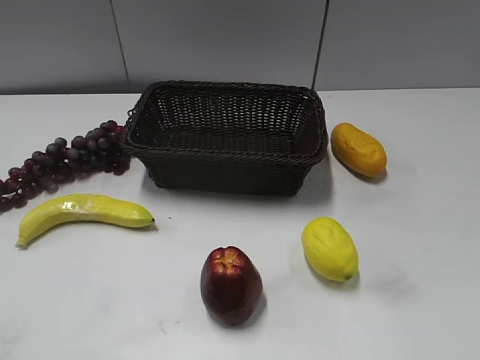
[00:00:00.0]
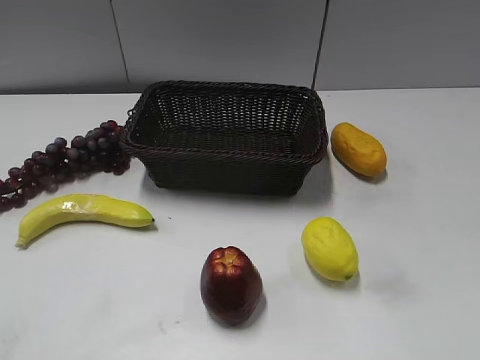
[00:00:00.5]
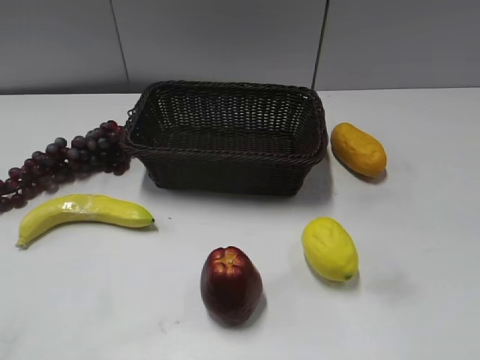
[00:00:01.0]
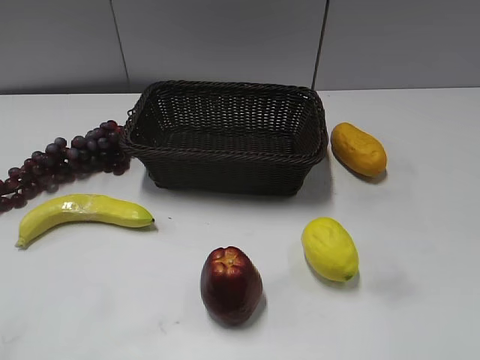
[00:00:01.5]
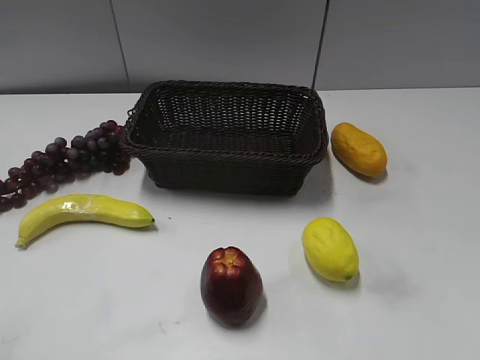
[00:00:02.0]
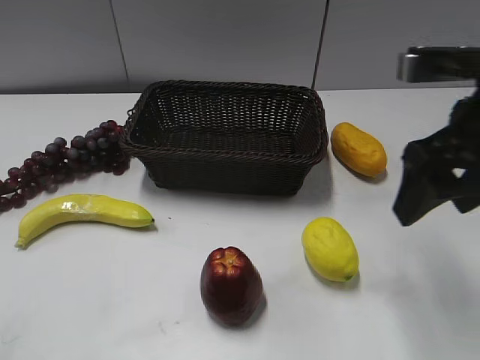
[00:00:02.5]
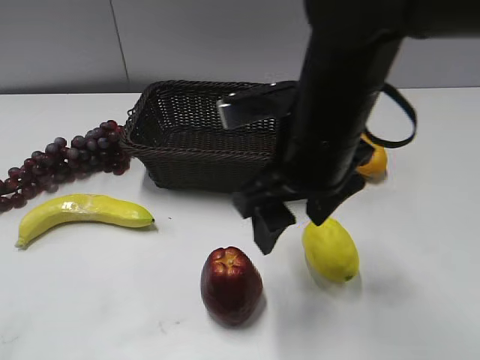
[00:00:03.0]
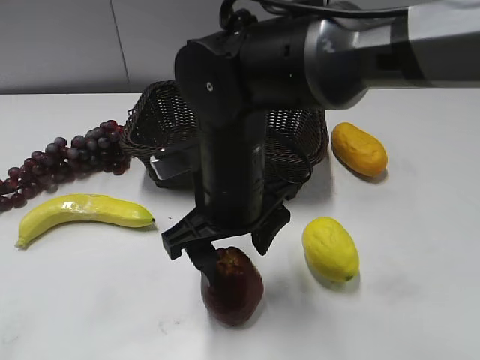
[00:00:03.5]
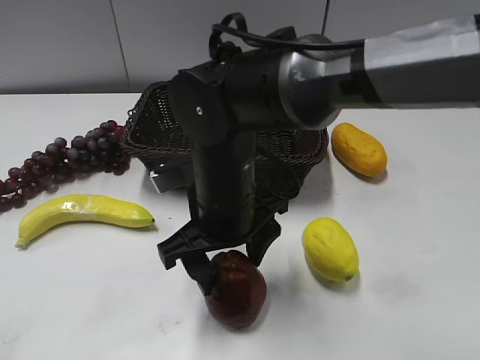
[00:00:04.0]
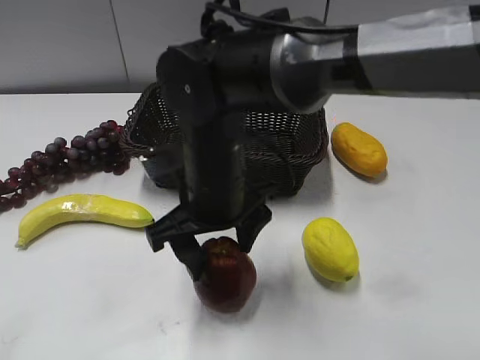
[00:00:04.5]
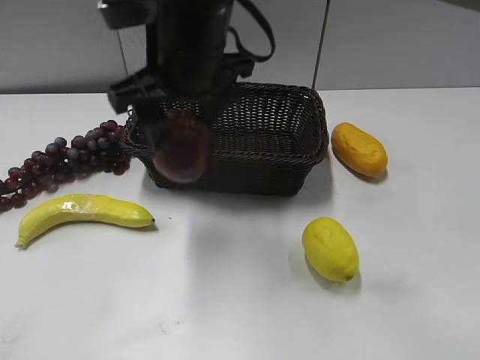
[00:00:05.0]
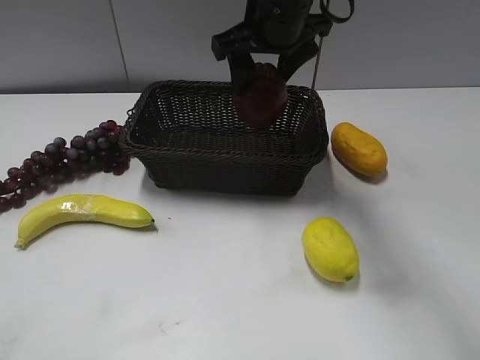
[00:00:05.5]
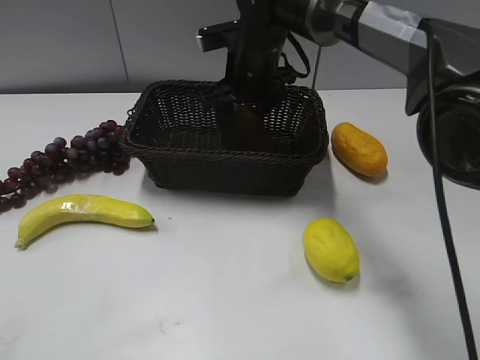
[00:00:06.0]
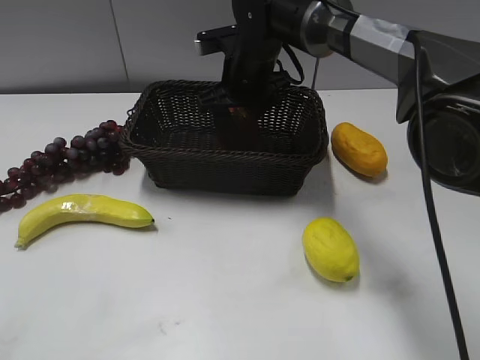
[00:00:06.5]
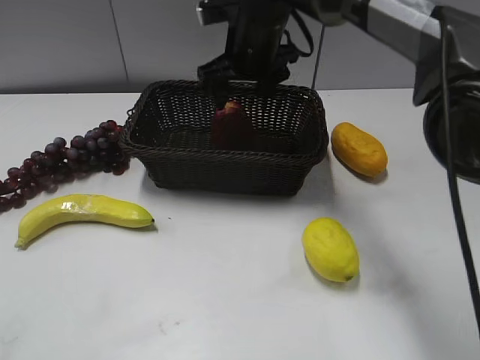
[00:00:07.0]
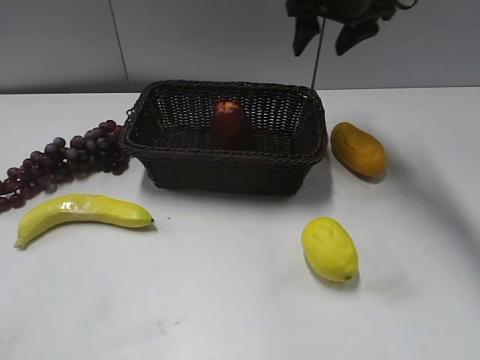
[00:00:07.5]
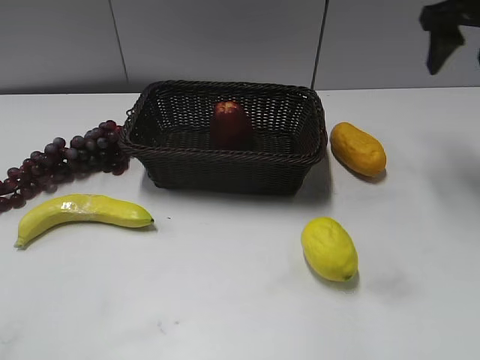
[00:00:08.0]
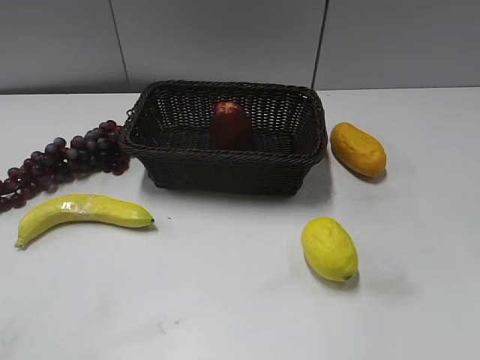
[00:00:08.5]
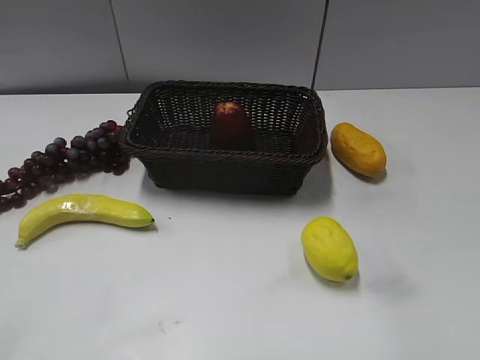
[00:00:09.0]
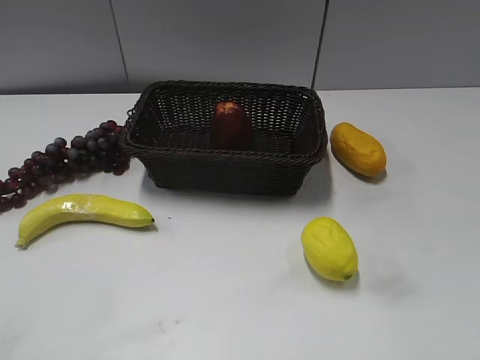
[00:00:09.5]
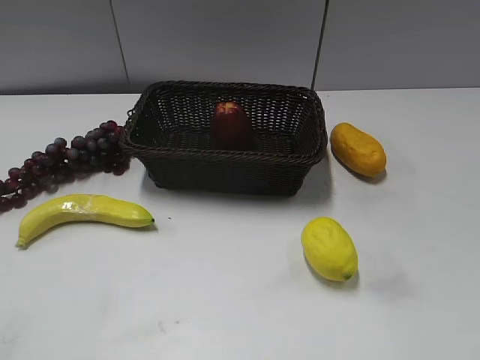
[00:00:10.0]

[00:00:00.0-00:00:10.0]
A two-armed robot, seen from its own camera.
Step, 00:00:02.5 to 00:00:04.0: Grasp the apple with right gripper.
Step, 00:00:04.5 to 00:00:06.0: Place the apple in the basket with right gripper.
00:00:02.0 to 00:00:04.0: The right gripper goes about 35 cm to the left and downward.
00:00:04.0 to 00:00:06.0: The right gripper moves forward, approximately 20 cm.
00:00:06.0 to 00:00:08.0: The right gripper is displaced to the right and upward by roughly 30 cm.
00:00:08.0 to 00:00:10.0: The right gripper heads backward, covering approximately 40 cm.
